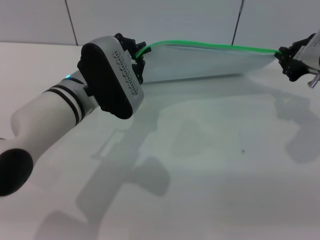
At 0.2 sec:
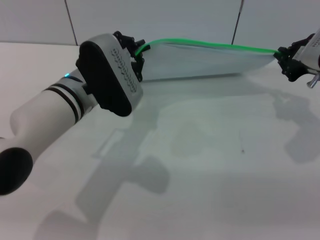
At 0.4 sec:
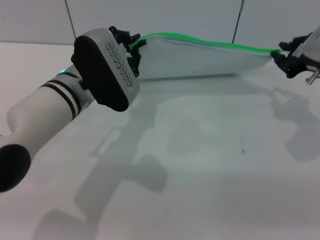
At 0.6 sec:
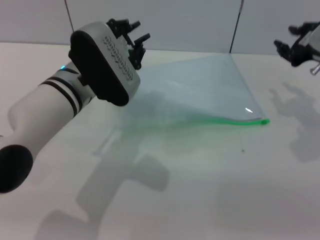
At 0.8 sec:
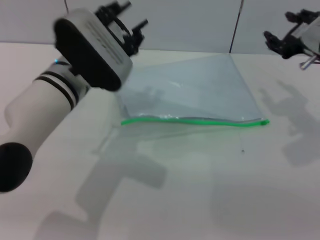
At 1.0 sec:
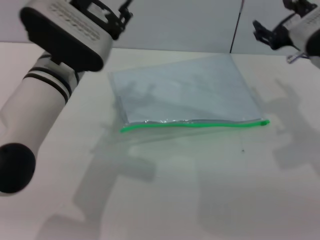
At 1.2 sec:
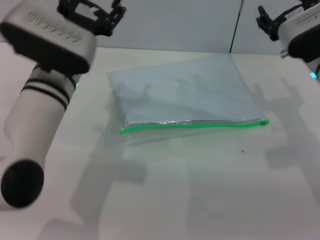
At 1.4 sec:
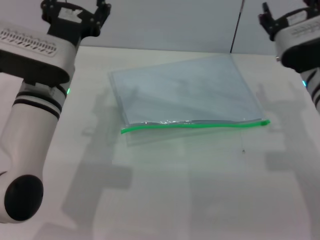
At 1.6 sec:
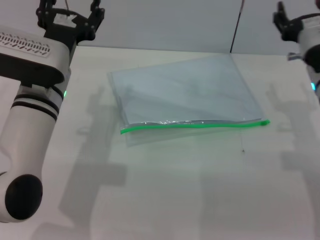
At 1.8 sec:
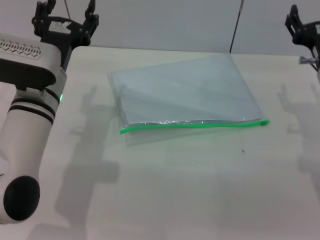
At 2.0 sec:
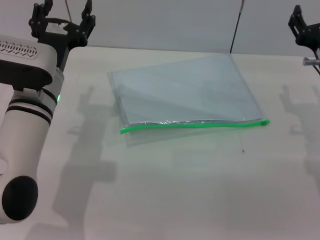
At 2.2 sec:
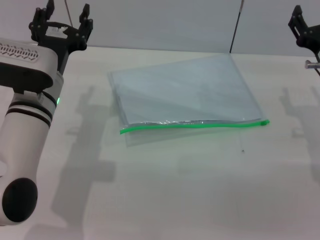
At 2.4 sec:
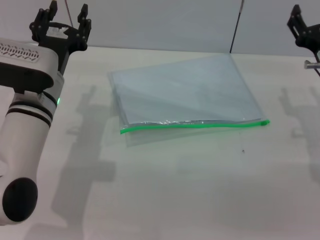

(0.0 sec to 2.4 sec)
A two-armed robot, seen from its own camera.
Step, 1.0 sec - 1.4 sec: Place the transparent plastic bag.
0.0 sec - 1.2 sec: The left gripper opens. Meanwhile the right gripper is displaced to the left by about 5 cm, and opens its fingers.
1.2 sec - 2.4 sec: The right gripper ends up about 5 cm from where it was.
